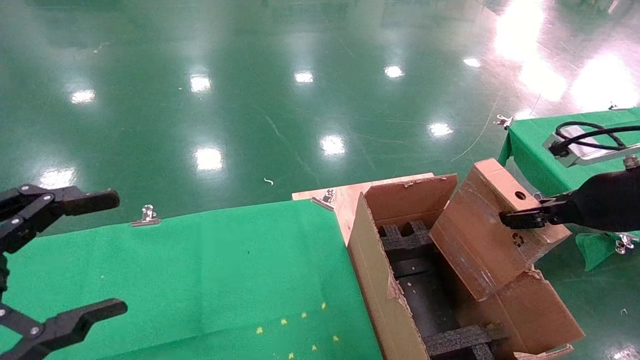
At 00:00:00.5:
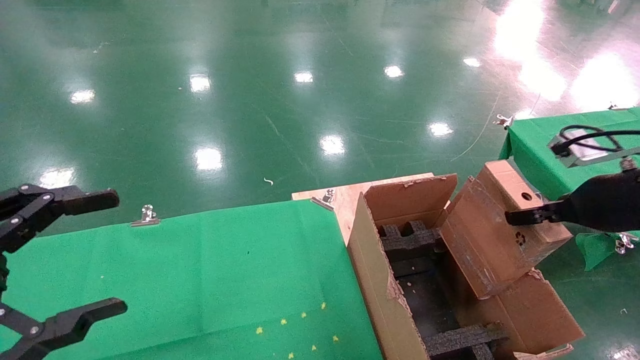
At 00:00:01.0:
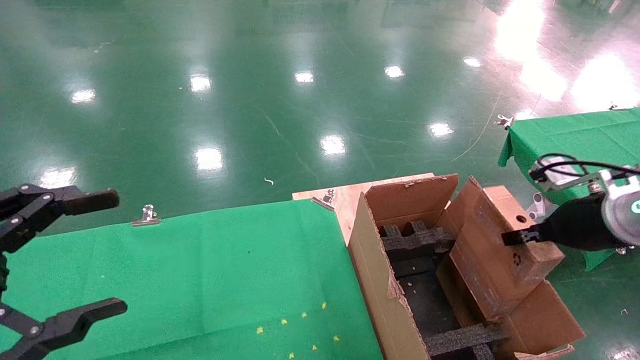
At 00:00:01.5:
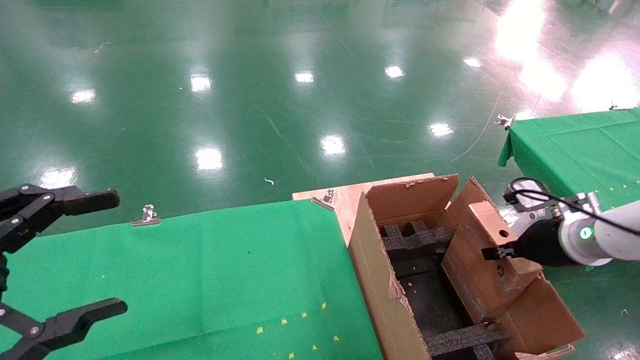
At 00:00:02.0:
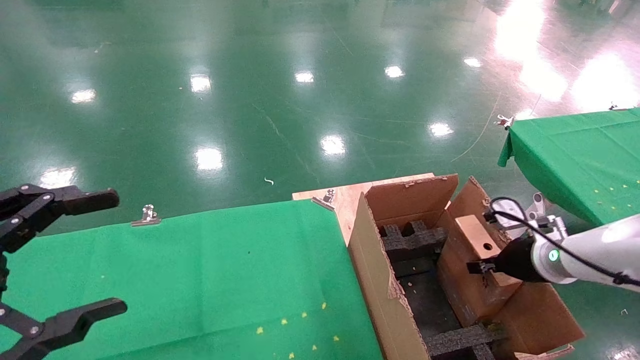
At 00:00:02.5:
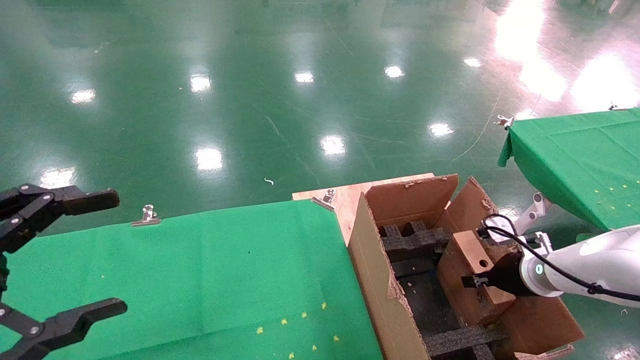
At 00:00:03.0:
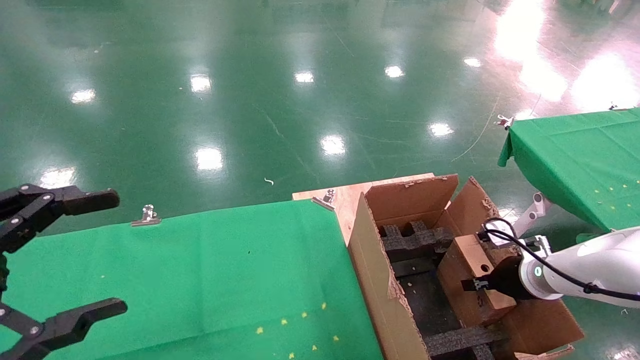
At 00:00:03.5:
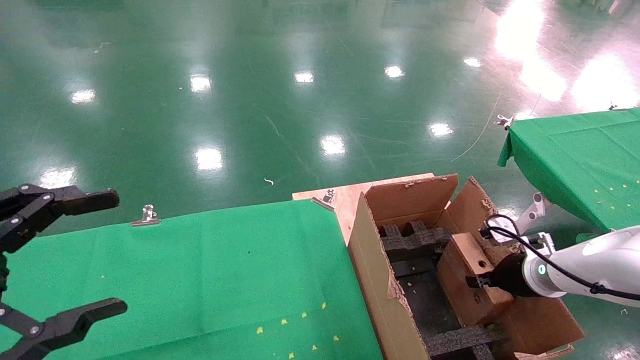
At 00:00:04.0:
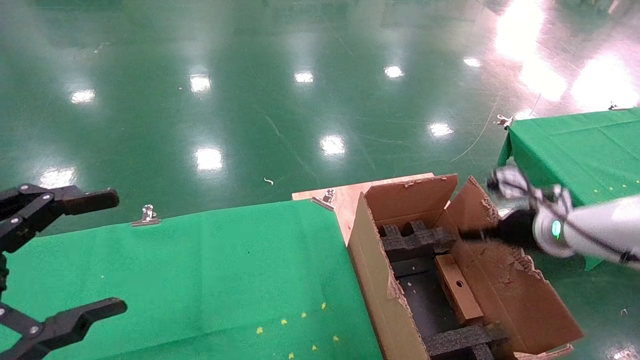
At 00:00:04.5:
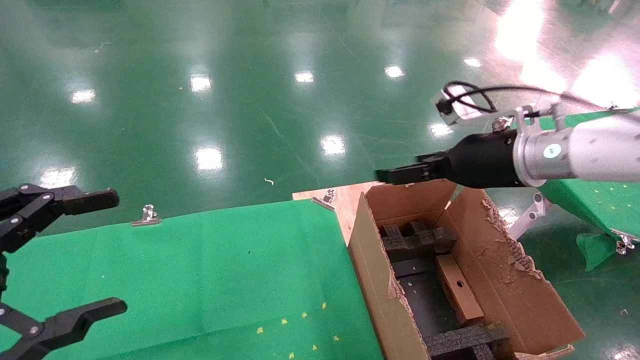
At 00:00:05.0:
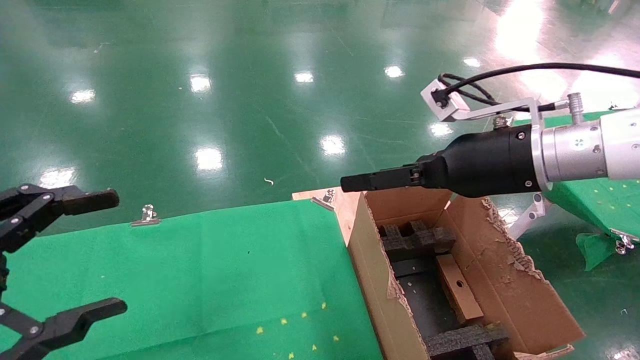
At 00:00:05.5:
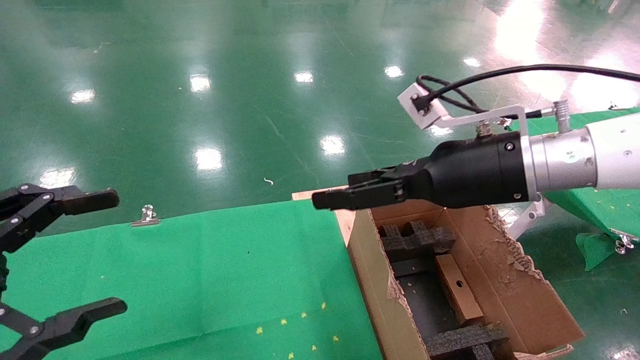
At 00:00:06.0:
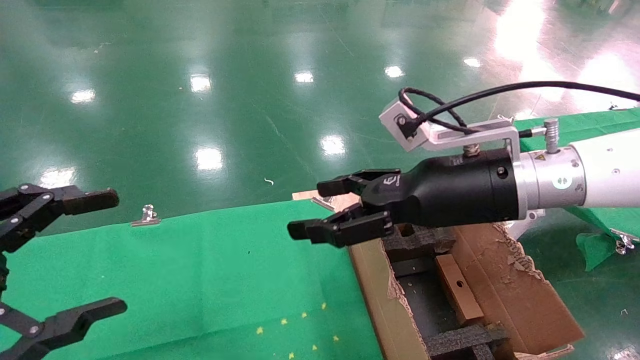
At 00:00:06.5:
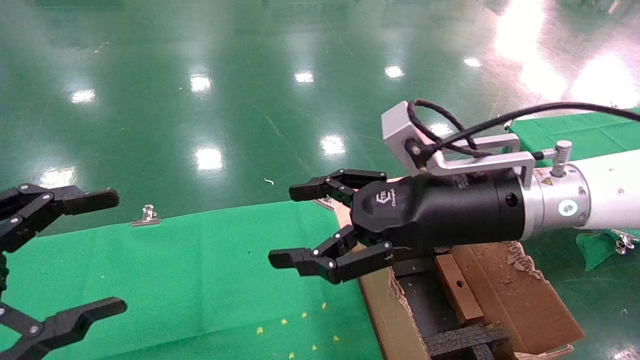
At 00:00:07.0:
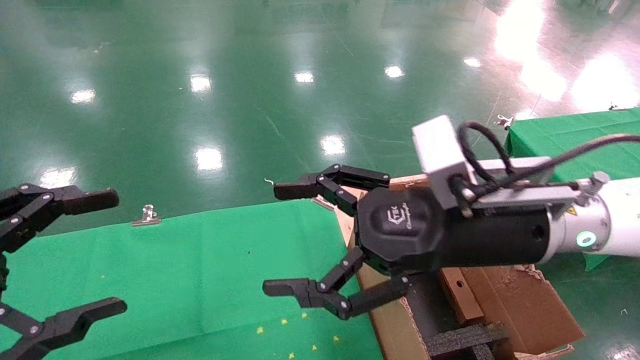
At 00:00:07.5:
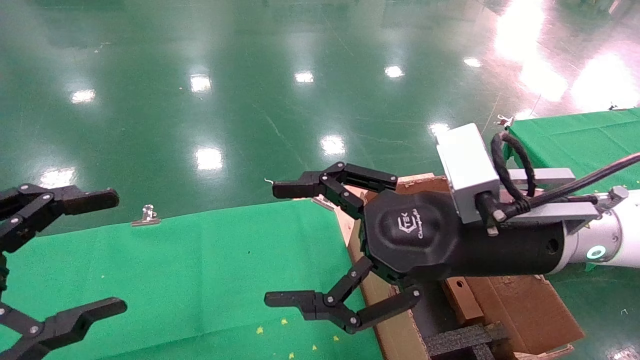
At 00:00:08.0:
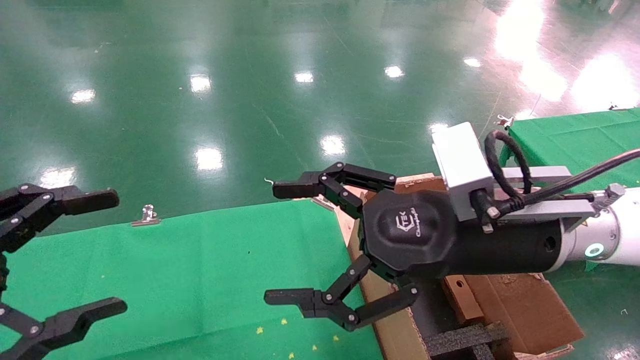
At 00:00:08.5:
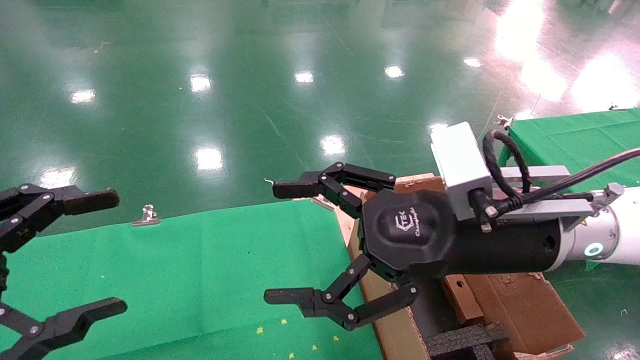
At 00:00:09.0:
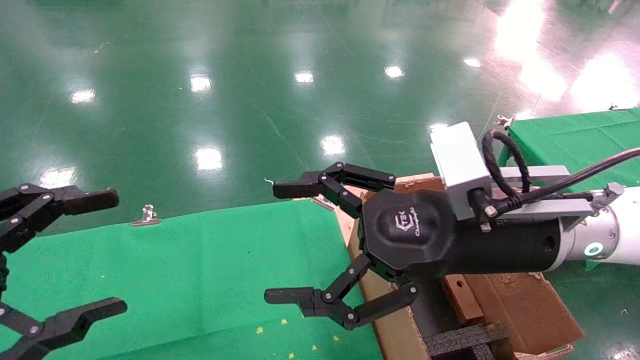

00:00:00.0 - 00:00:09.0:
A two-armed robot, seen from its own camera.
Task of the whole recording: using a robotic arm to pick up a cardboard box and palace it the carton.
Step, 00:00:00.0 - 00:00:04.0: Place the mouse and the power cord paper box into the container.
00:00:00.0 - 00:00:02.0: The right gripper heads downward and forward, covering about 20 cm.
00:00:02.0 - 00:00:04.5: The right gripper shifts roughly 20 cm upward and to the left, and opens.
00:00:04.5 - 00:00:07.0: The right gripper goes about 15 cm to the left and backward.
00:00:07.0 - 00:00:09.0: The grippers make only small movements.

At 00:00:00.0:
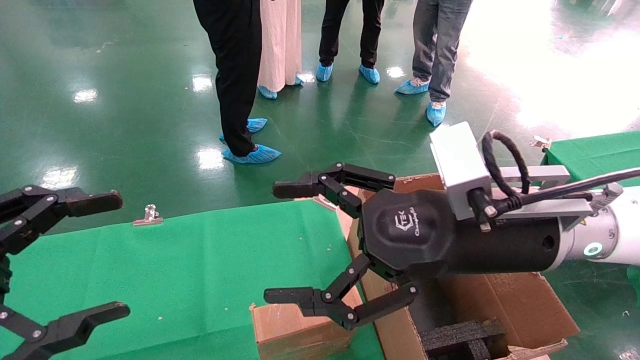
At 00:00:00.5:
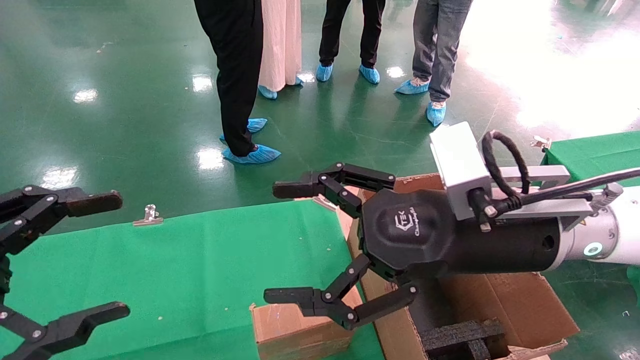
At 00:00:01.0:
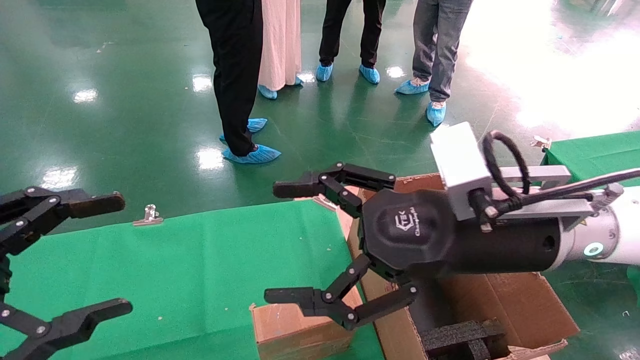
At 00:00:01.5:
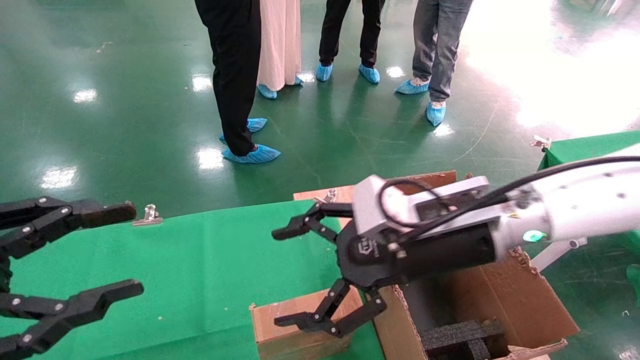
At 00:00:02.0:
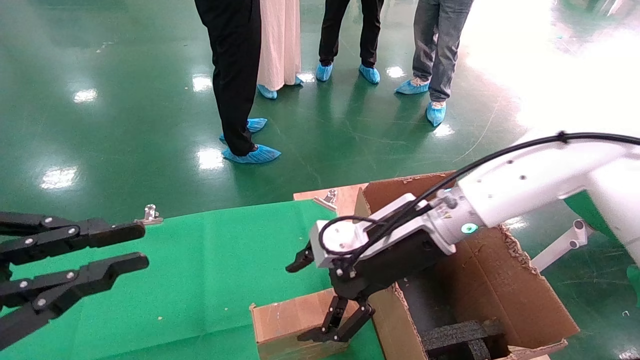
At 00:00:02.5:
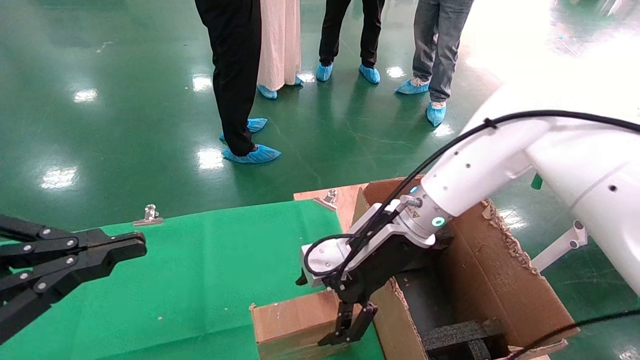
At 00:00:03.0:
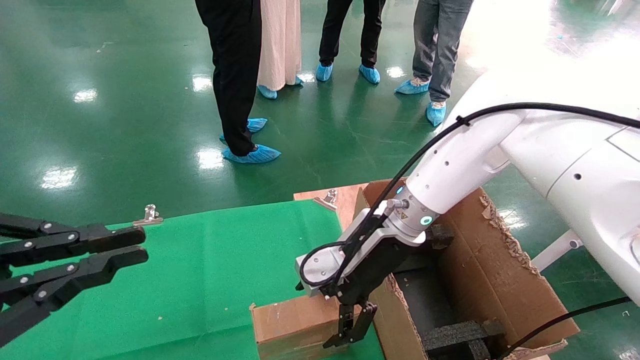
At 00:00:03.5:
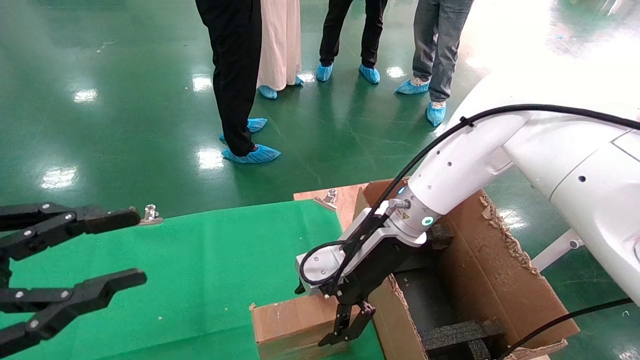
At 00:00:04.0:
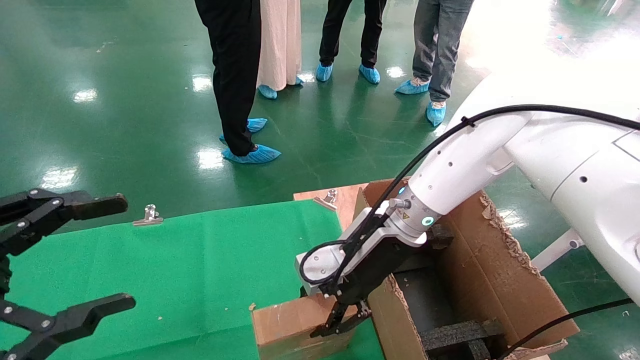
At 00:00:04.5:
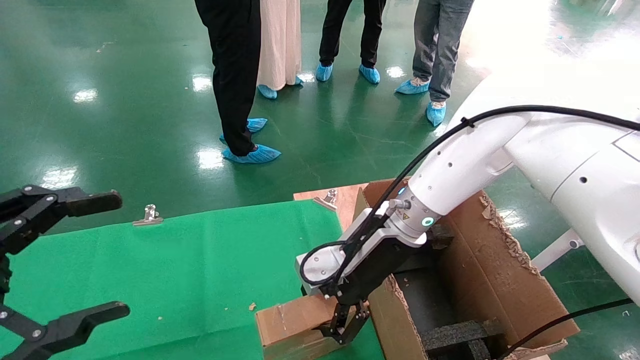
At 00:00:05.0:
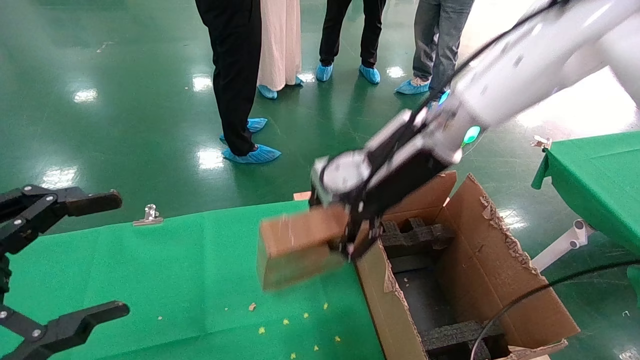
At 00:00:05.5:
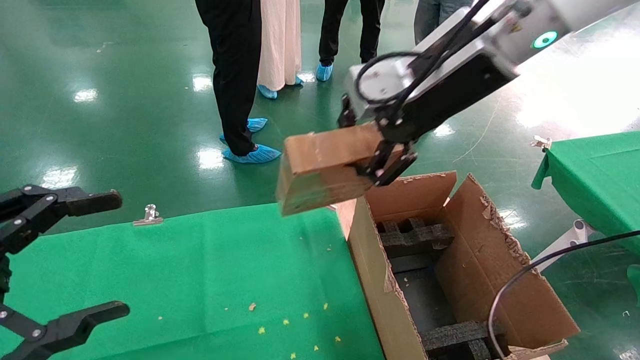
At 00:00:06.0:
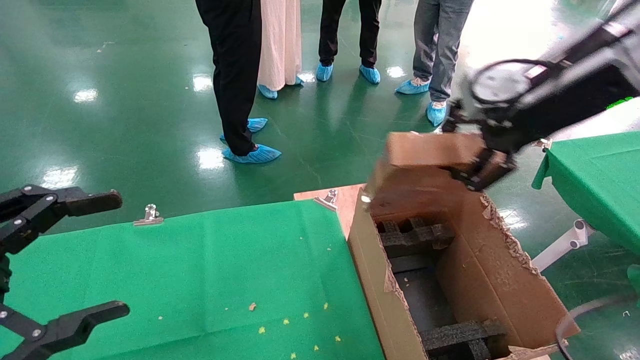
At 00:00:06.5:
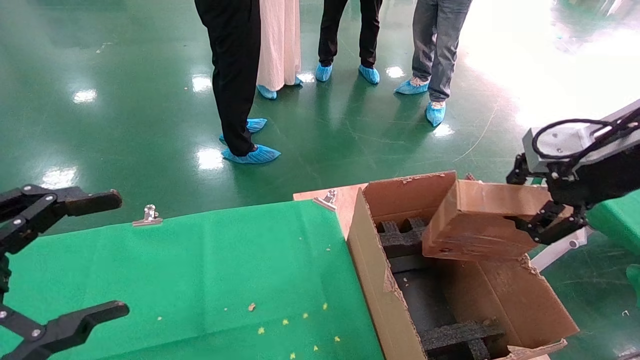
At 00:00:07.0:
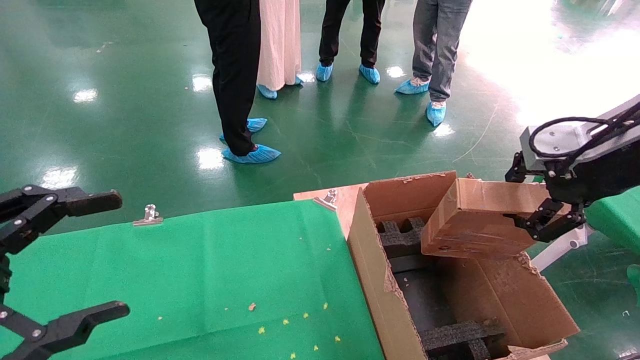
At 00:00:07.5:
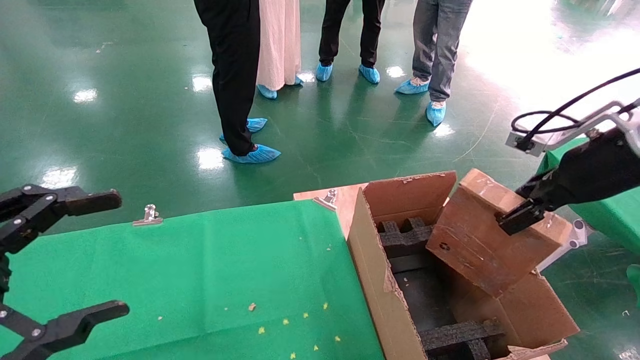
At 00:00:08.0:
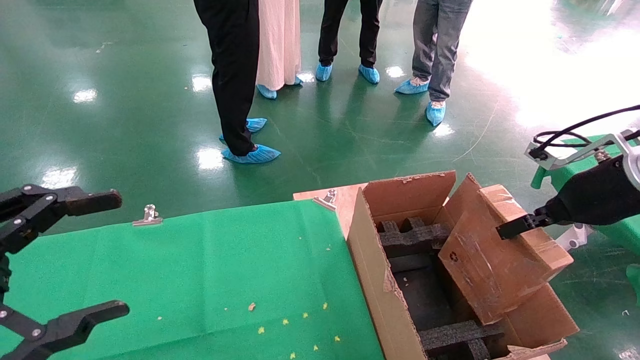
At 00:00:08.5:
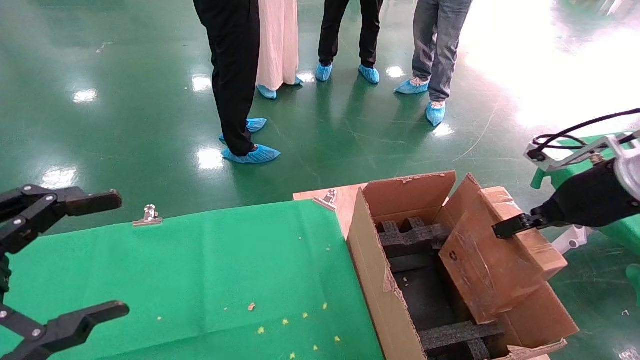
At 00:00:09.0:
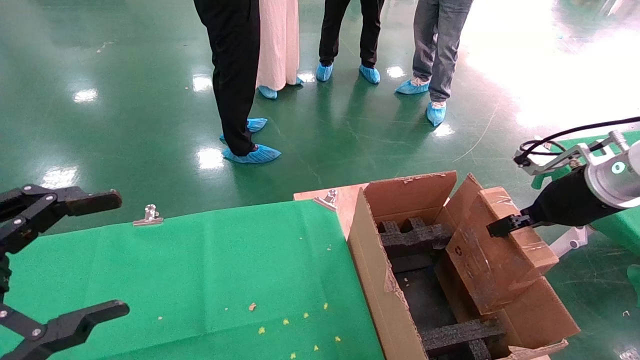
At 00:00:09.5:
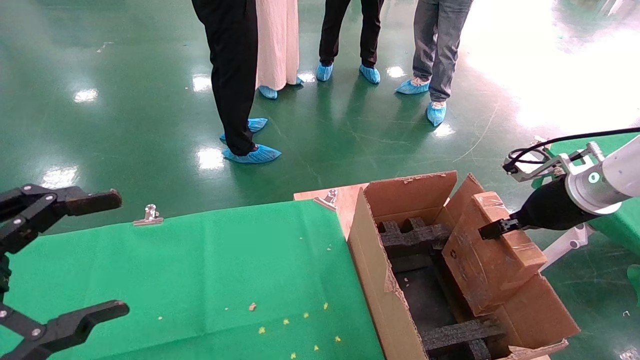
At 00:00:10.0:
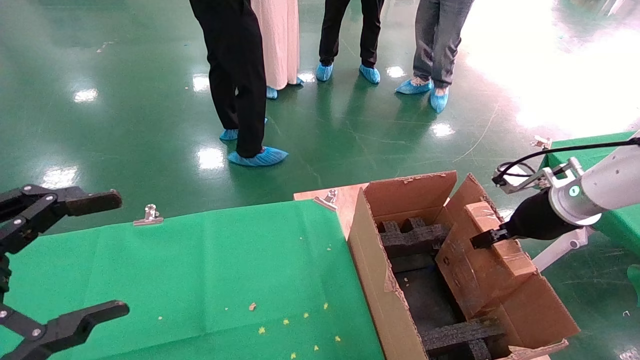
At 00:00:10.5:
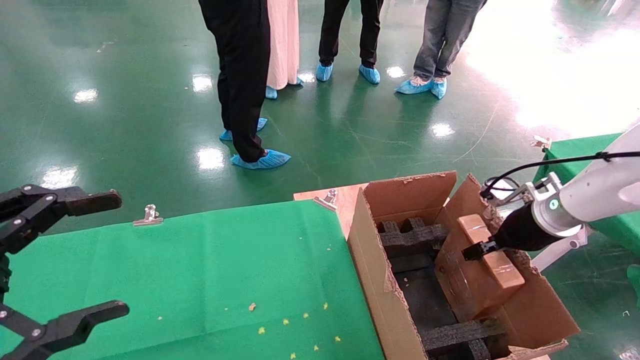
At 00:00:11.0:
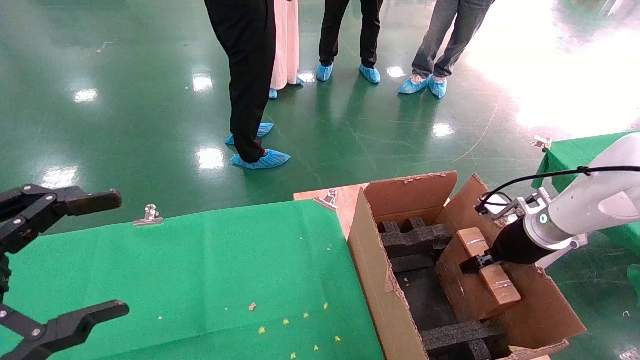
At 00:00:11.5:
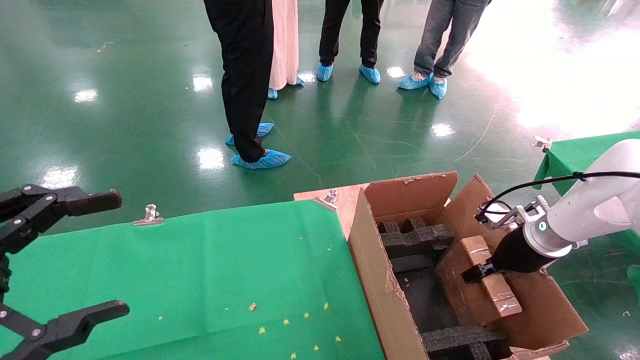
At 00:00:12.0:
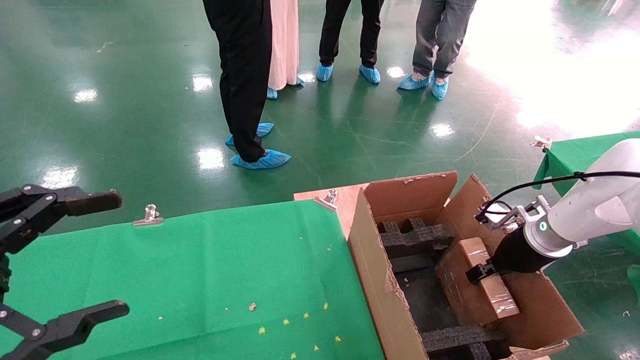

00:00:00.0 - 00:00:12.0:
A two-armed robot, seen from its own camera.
Task of the whole recording: using a robotic arm to pick up a cardboard box and palace it the carton.
Step, 00:00:01.5 - 00:00:04.0: Pick up the mouse and the power cord paper box.
00:00:00.0 - 00:00:02.0: The right gripper is displaced forward and downward by about 10 cm; the left gripper closes up.
00:00:02.0 - 00:00:04.0: The right gripper closes, while the left gripper opens its fingers.
00:00:04.0 - 00:00:06.0: The right gripper moves upward, to the right and backward, some 30 cm, and closes up.
00:00:06.0 - 00:00:08.0: The right gripper goes some 15 cm downward and to the right.
00:00:08.0 - 00:00:10.0: The right gripper heads downward and forward, covering roughly 10 cm.
00:00:10.0 - 00:00:12.0: The right gripper is displaced downward by roughly 5 cm.
